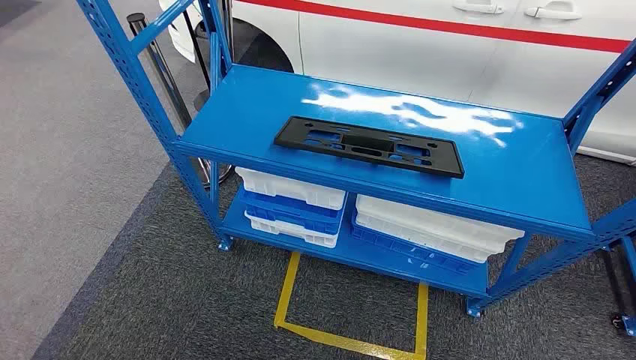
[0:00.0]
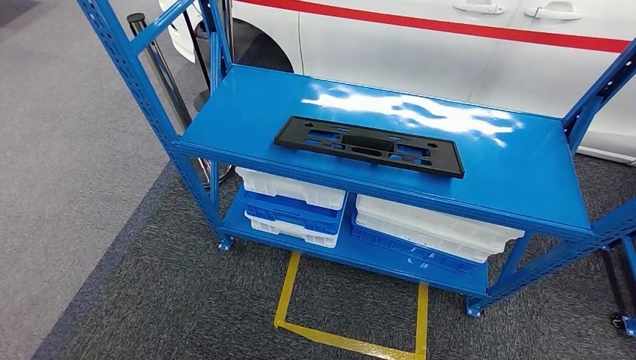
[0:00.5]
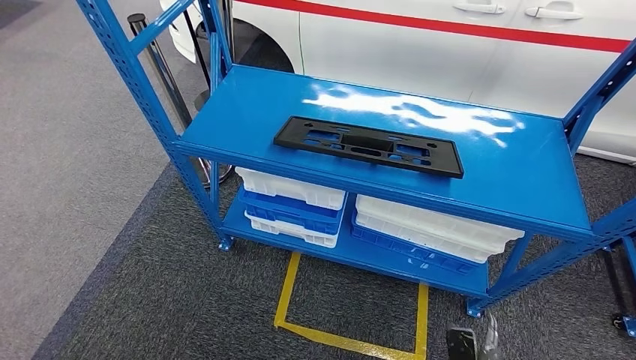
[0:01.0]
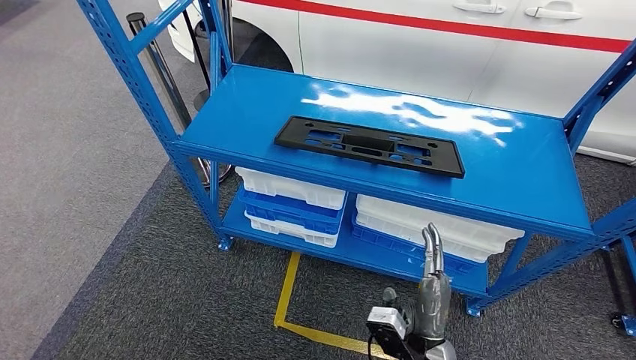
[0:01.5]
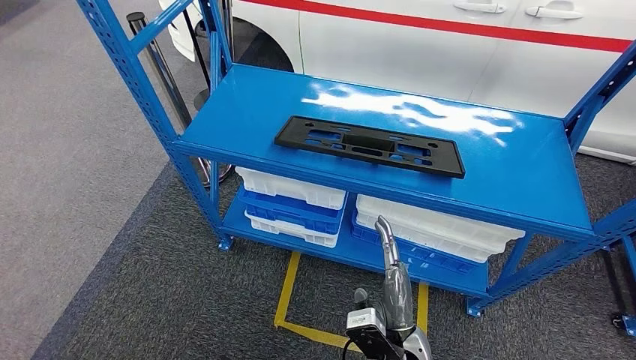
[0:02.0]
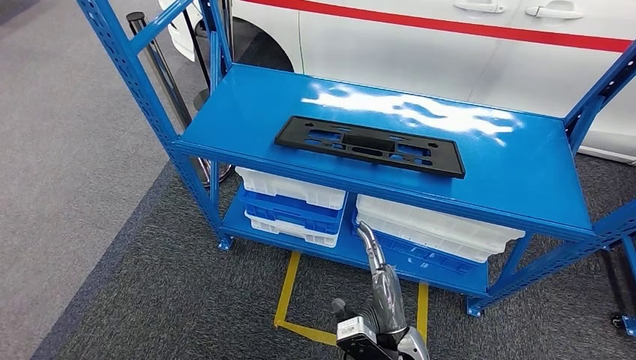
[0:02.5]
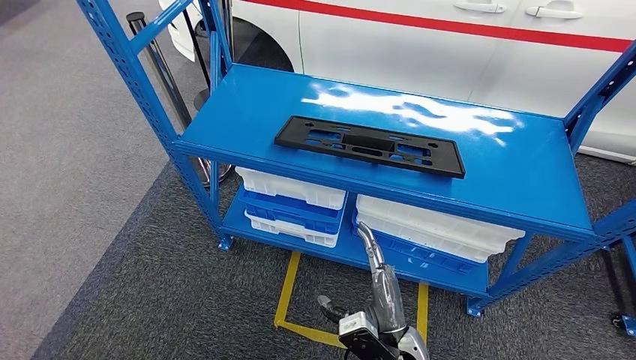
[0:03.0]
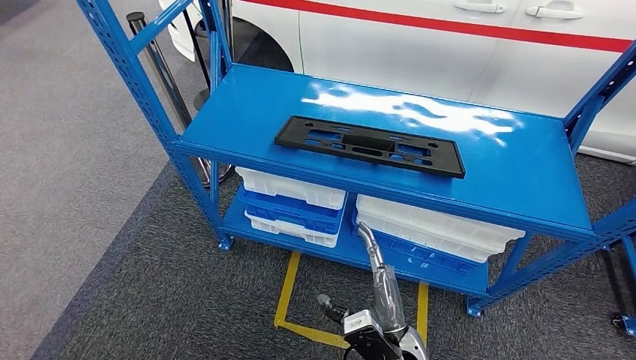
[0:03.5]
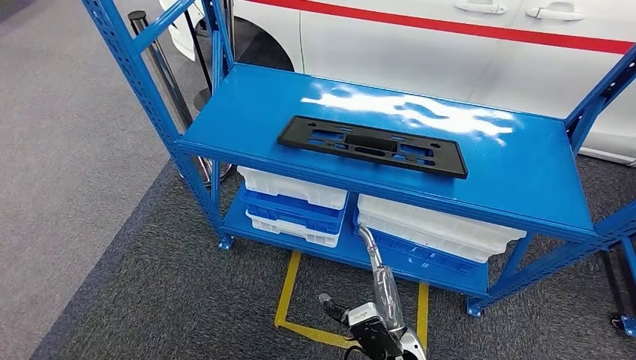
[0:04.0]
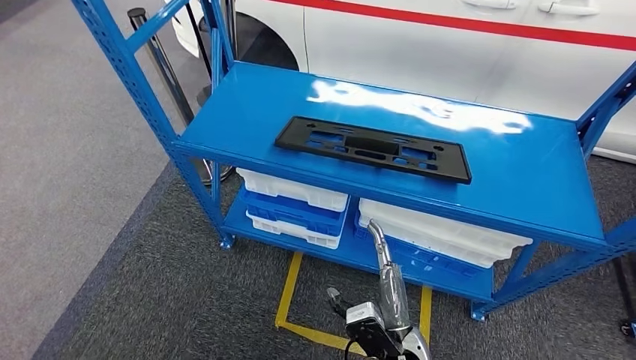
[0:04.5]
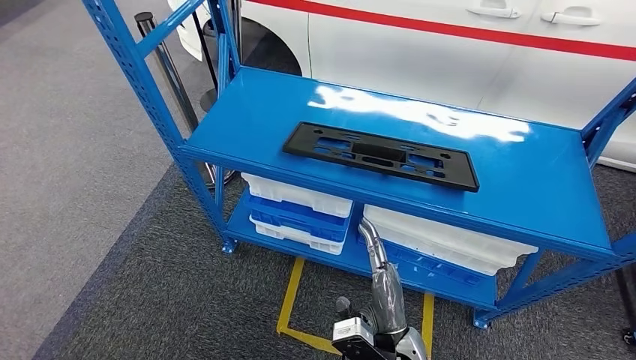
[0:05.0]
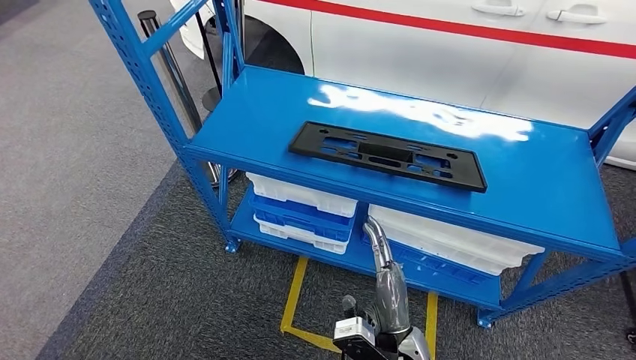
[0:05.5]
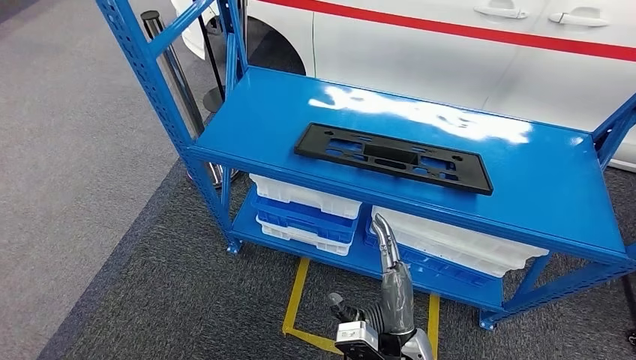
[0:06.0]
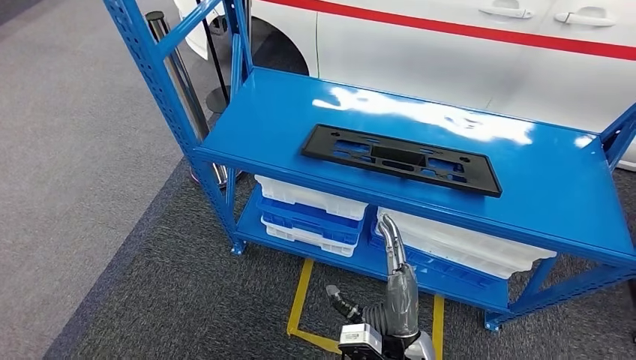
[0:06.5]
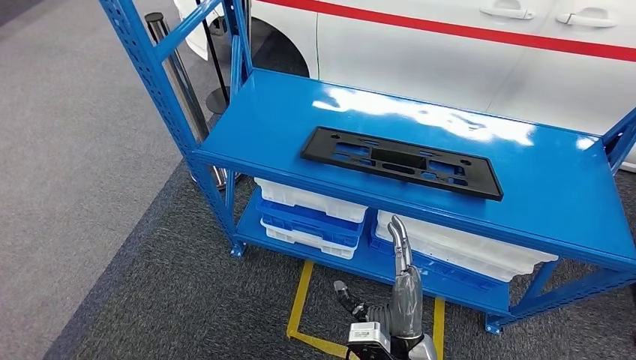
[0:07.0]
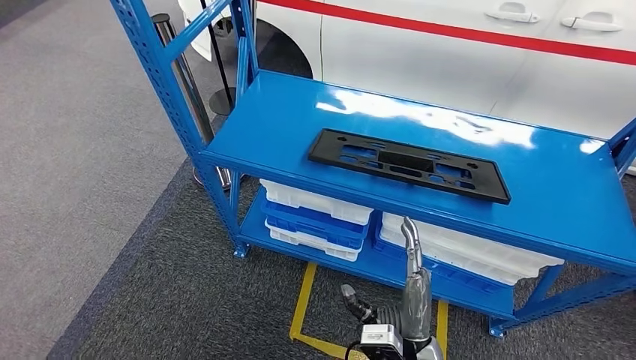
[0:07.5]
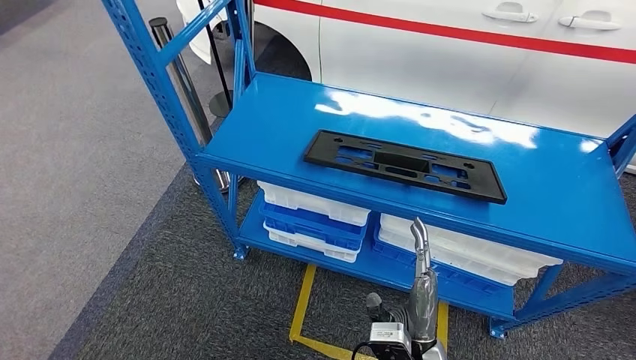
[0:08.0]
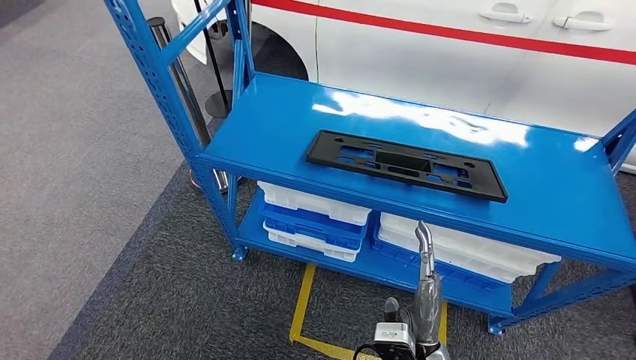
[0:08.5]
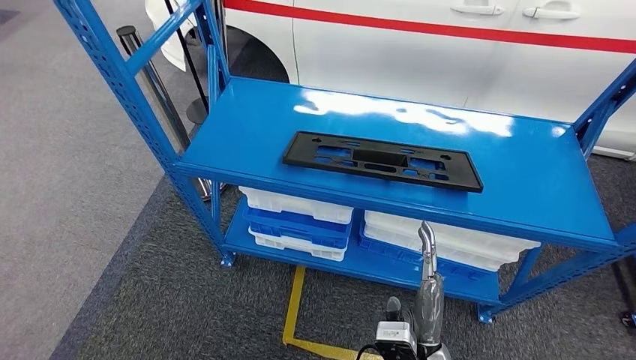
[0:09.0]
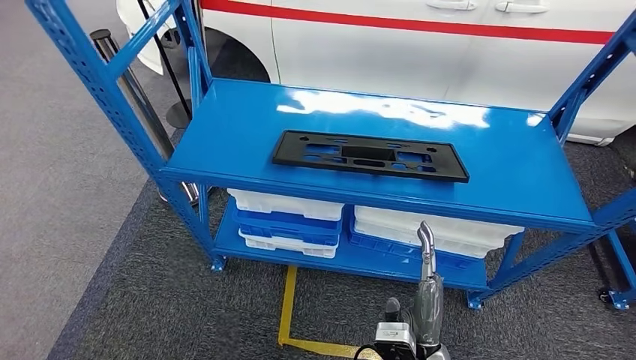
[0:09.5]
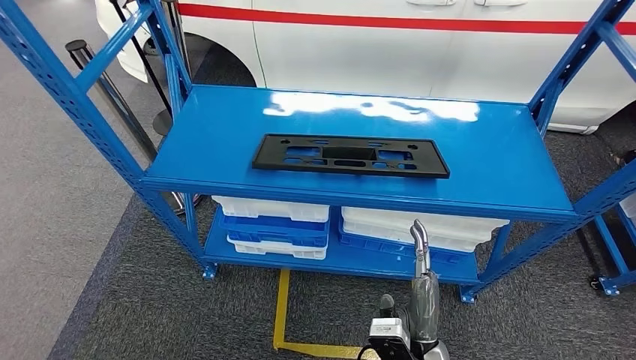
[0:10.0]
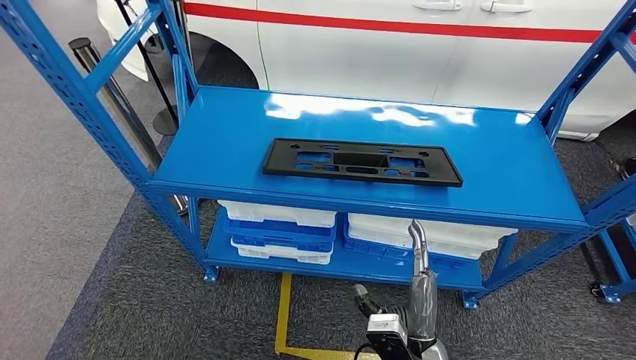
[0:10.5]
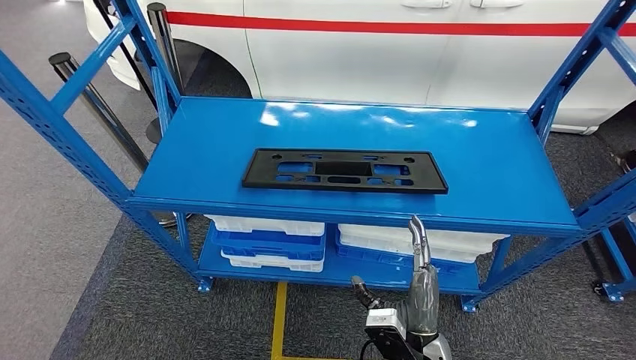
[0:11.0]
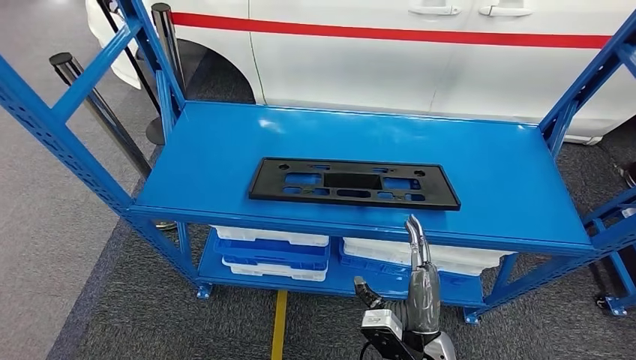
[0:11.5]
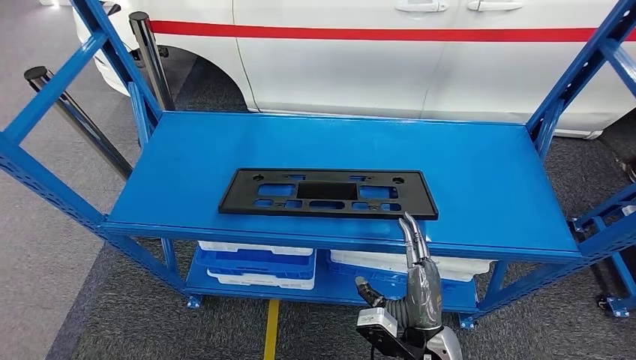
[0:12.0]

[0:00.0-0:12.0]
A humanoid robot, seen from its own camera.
0:02.0 to 0:04.0: There are only small adjustments of the hands.

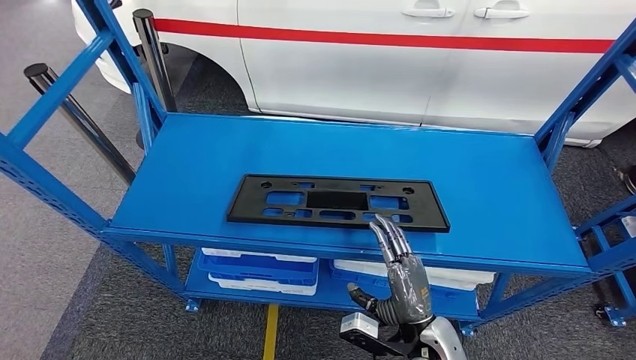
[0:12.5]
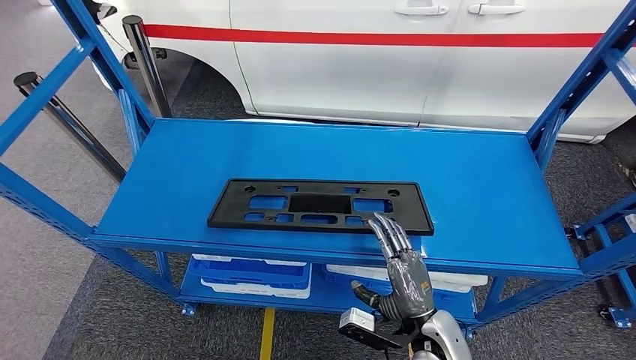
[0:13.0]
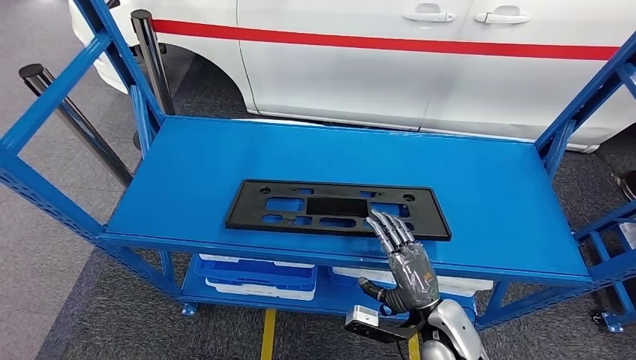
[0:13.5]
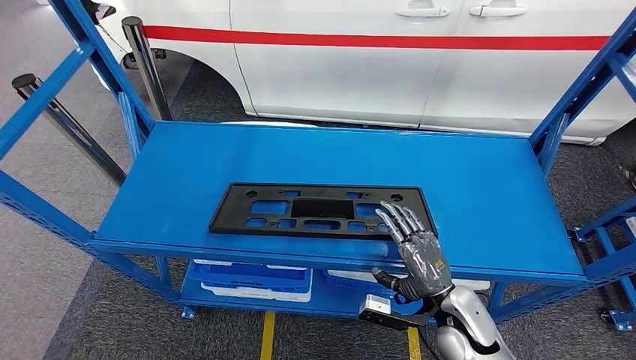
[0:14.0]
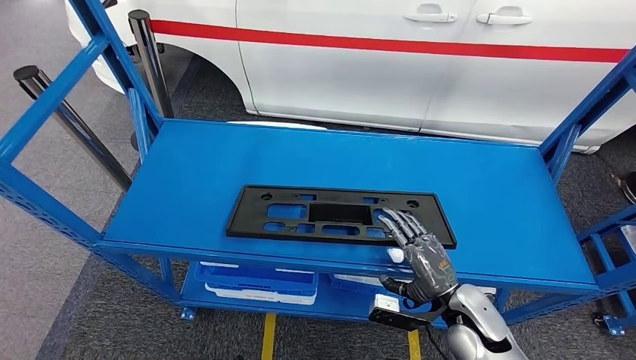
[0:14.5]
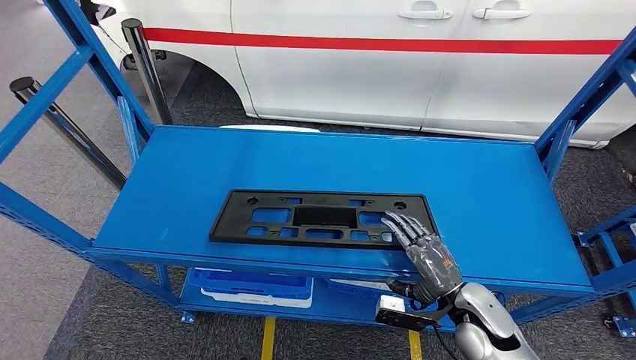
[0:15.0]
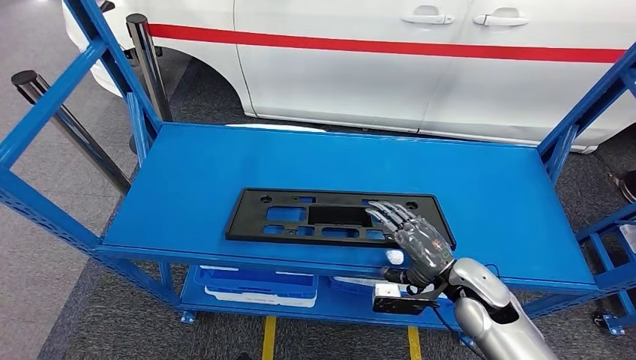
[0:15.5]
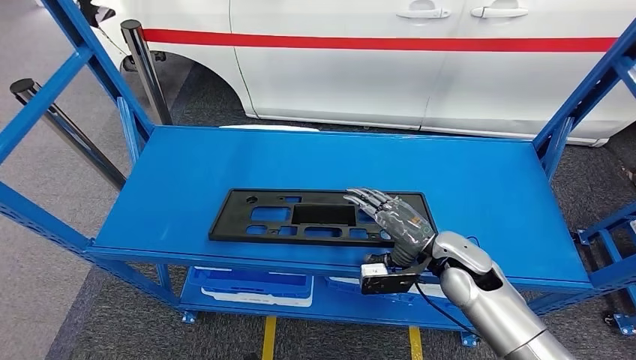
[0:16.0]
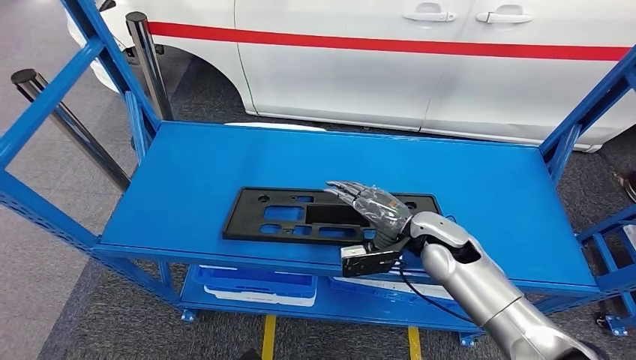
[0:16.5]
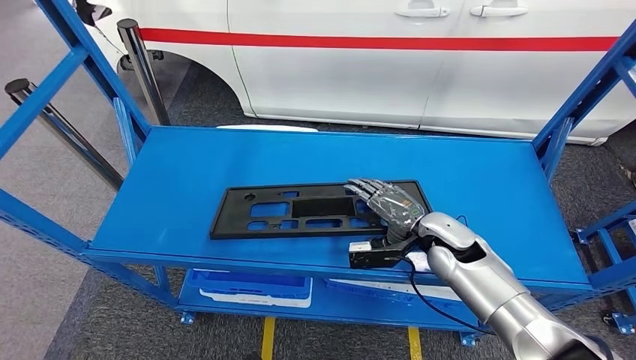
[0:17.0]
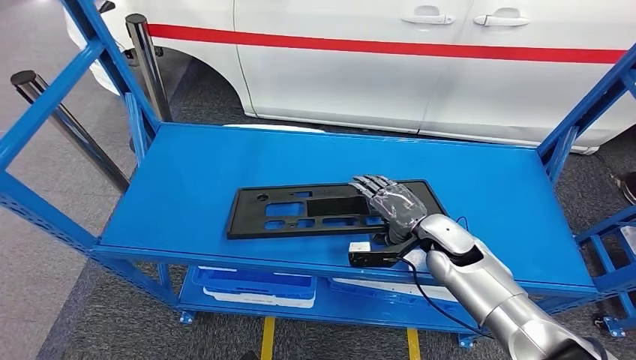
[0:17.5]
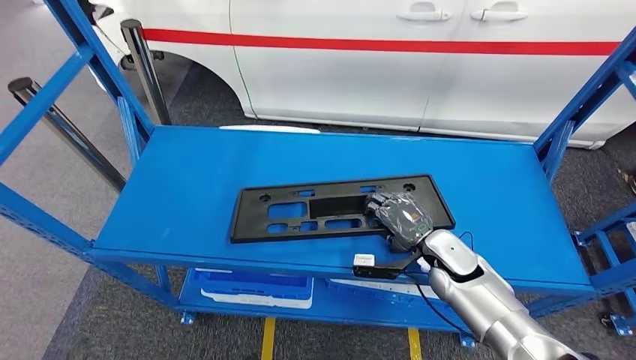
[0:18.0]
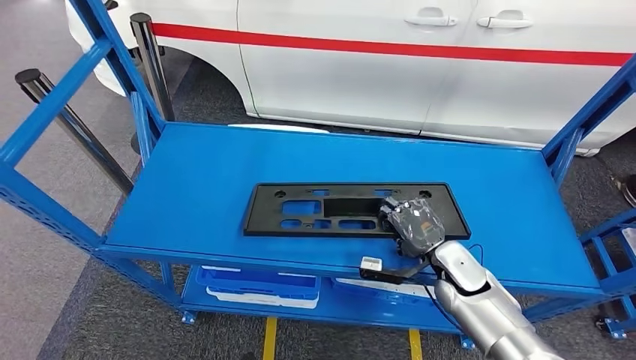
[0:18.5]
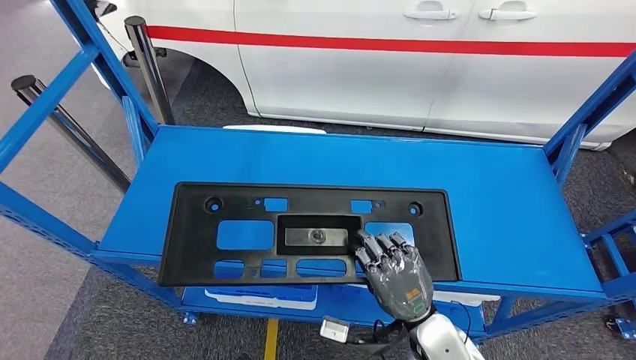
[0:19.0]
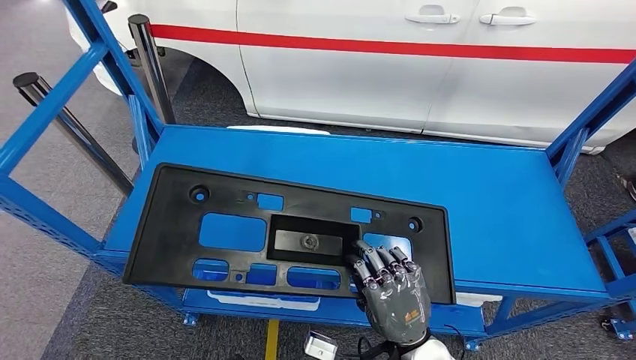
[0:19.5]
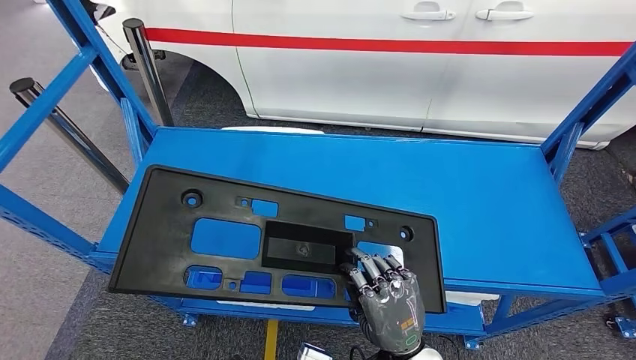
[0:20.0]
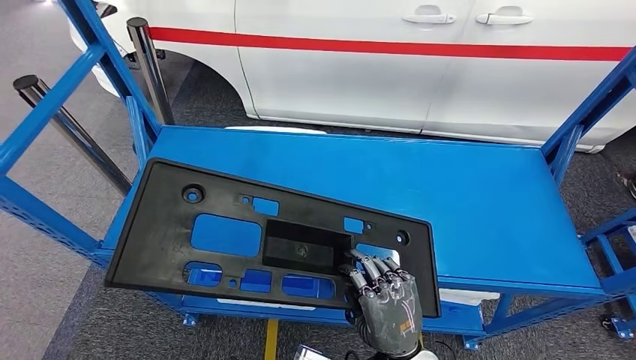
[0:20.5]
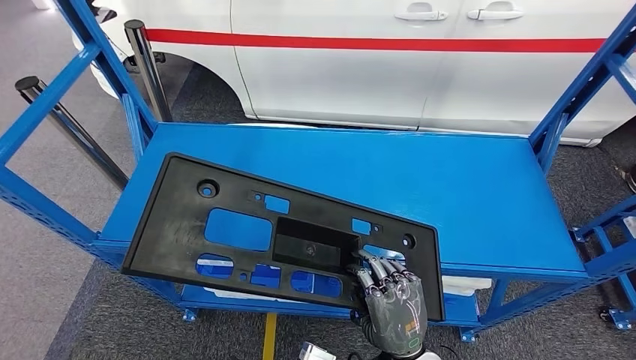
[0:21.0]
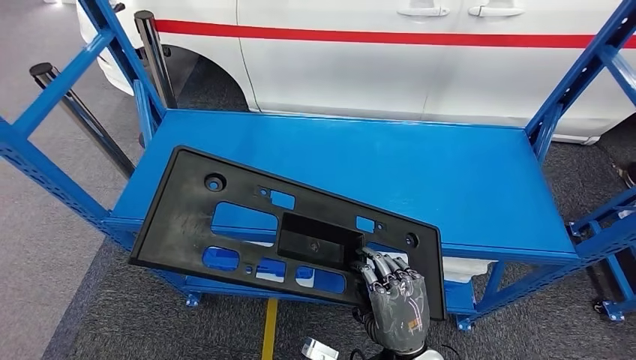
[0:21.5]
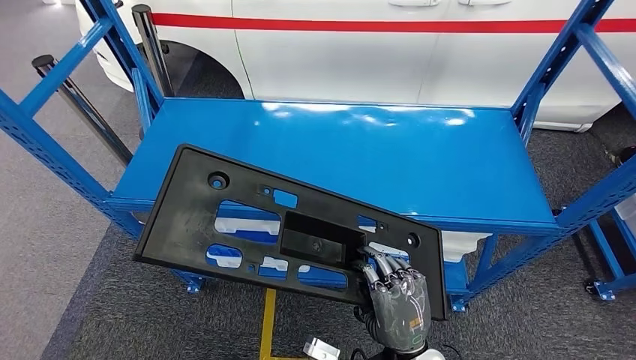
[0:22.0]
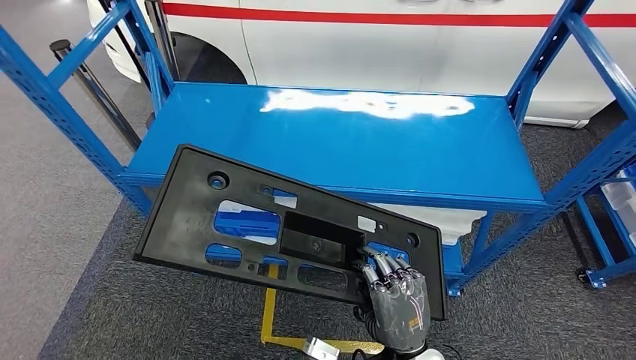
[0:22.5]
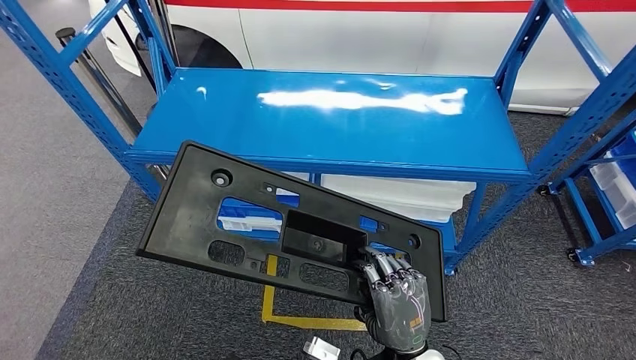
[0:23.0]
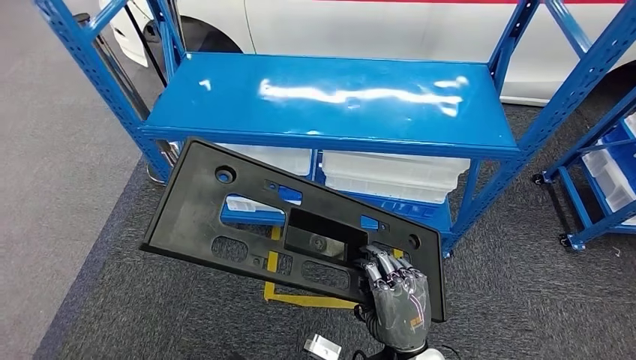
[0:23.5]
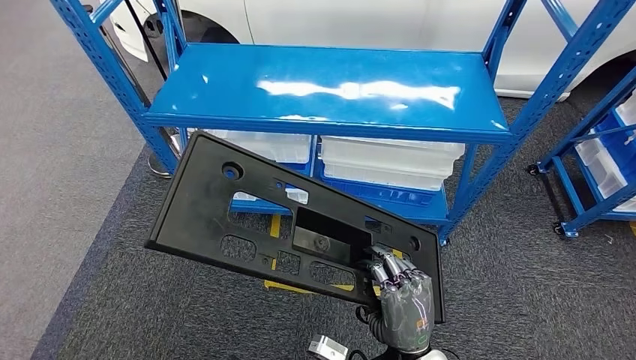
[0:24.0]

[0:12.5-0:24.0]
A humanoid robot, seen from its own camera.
Step, 0:12.5 to 0:20.0: Pick up the large material from the shelf.
0:14.5 to 0:16.5: The right hand heads forward, upward and to the left, covering some 15 cm.
